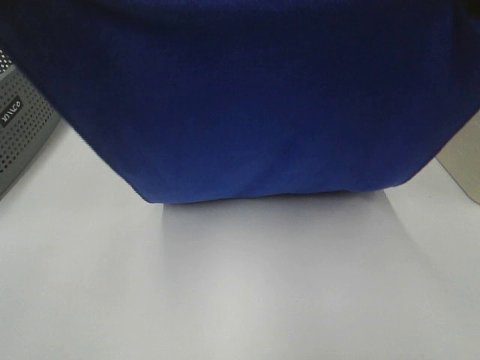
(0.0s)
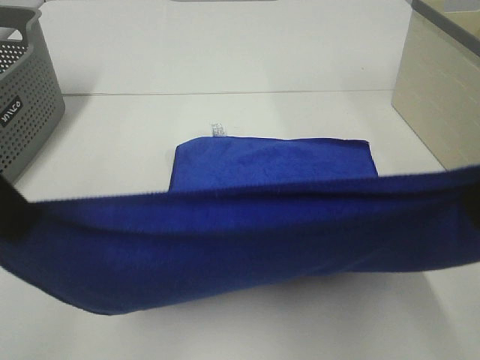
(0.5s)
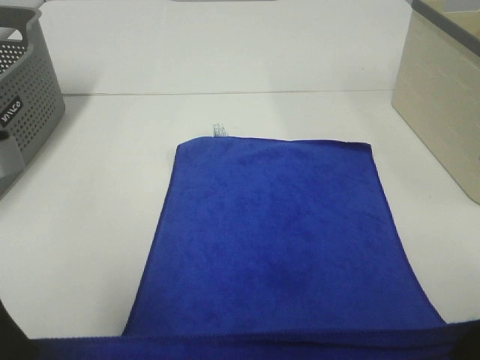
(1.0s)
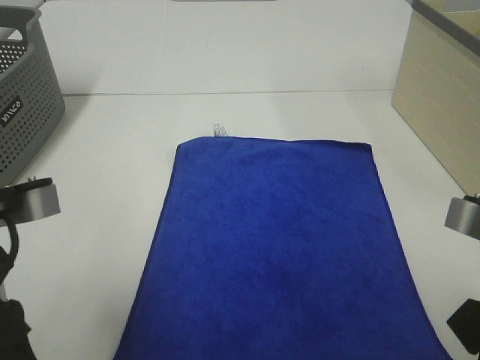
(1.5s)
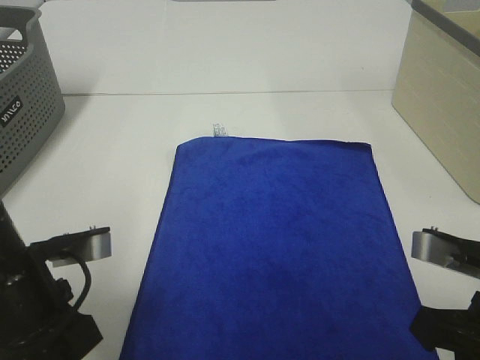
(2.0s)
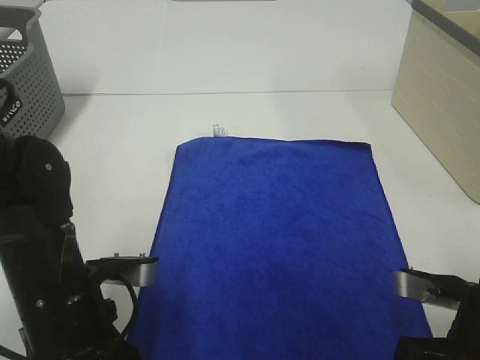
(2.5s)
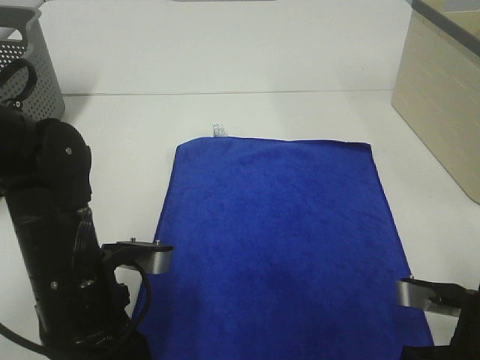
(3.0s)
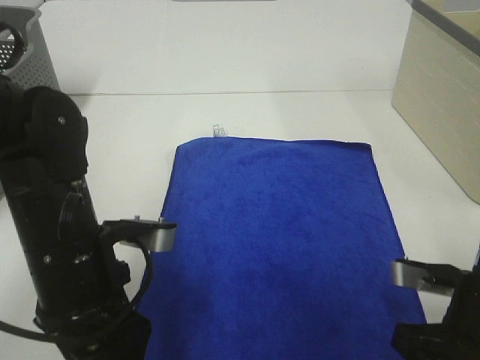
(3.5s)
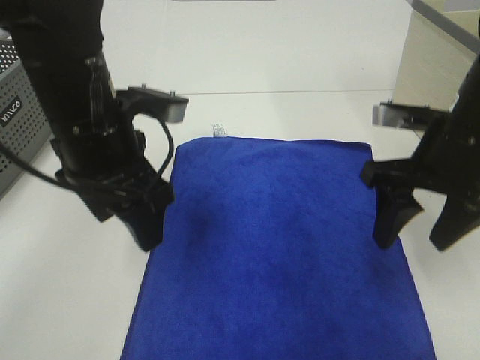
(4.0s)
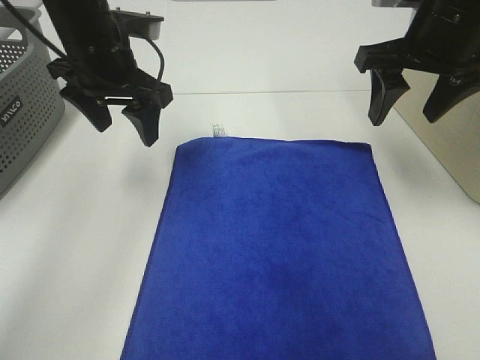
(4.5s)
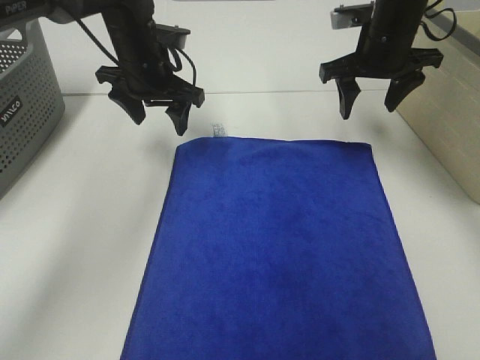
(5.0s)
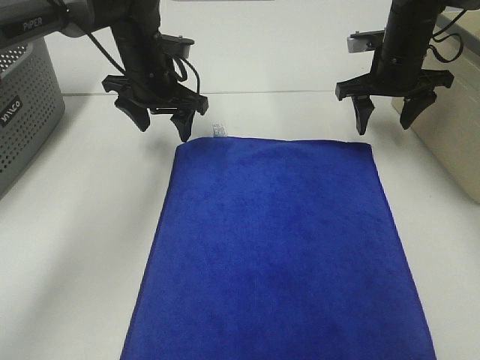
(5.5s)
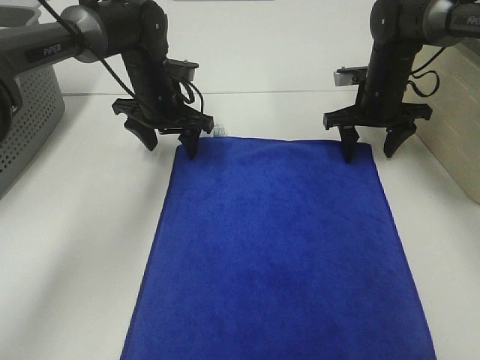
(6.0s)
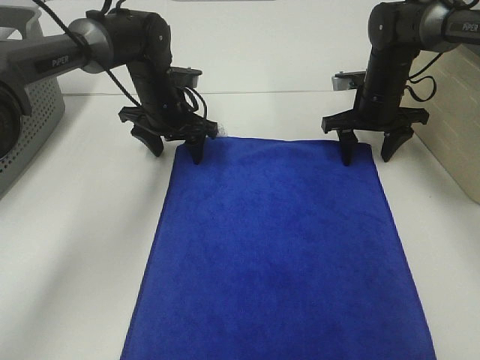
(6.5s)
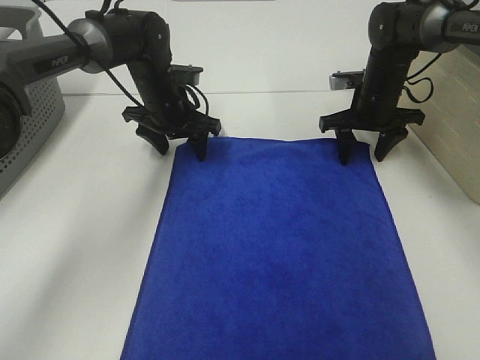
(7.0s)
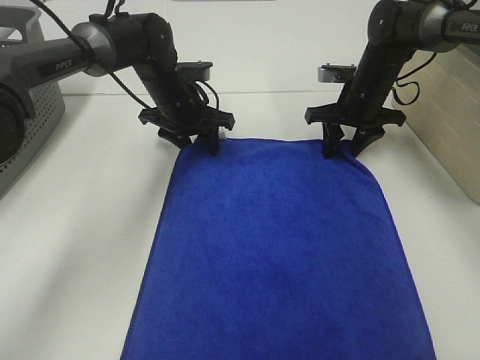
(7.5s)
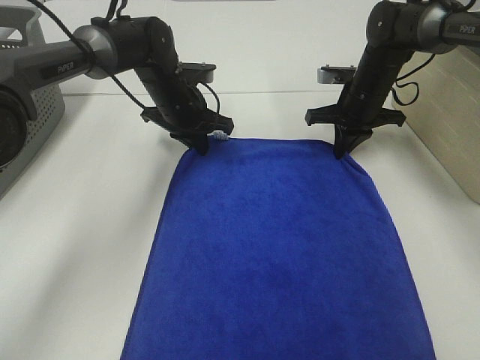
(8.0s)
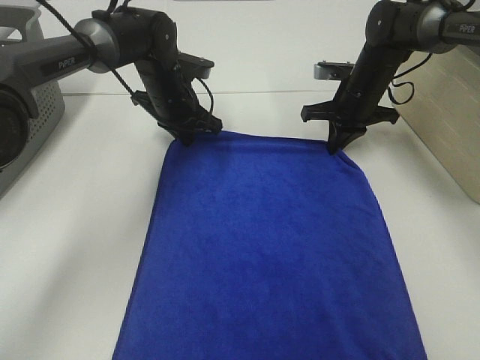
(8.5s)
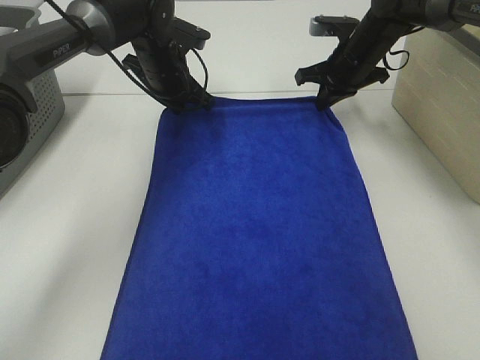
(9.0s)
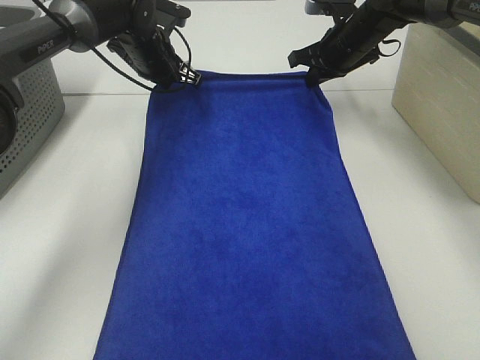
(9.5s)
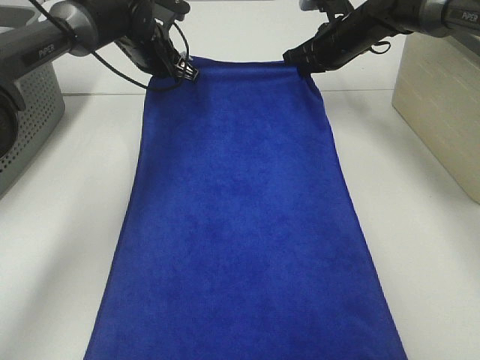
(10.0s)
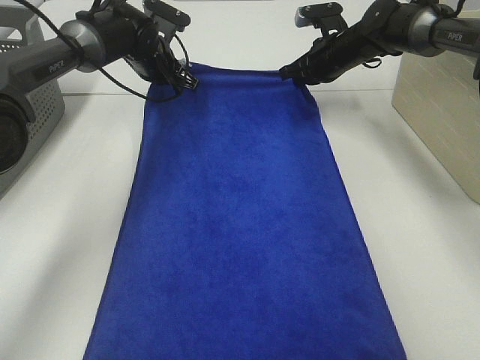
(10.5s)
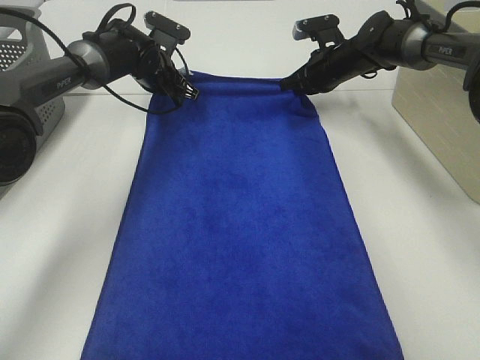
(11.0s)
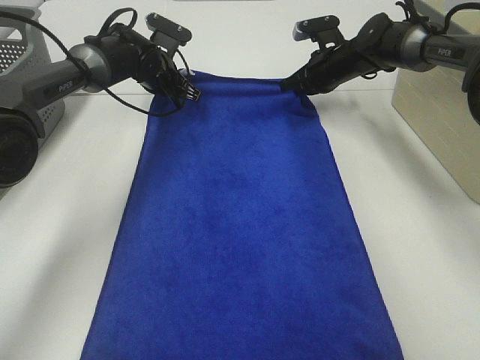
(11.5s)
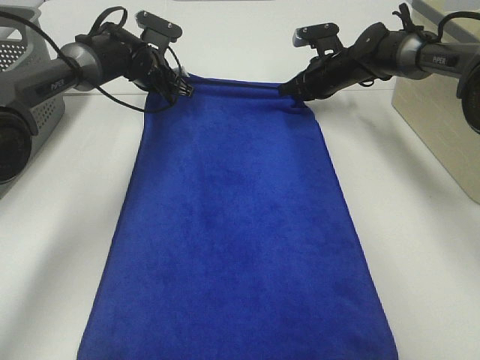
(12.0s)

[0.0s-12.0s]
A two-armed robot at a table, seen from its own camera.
Task of the whole recording: Remove the towel and place it.
Step, 0.0s to 6.0s: Left hand:adjust the blue towel.
Step, 0.0s to 6.0s: Right hand:adjust the blue towel.
0.0s to 2.0s: Both grippers move downward, roughly 25 cm.
2.0s to 4.0s: The right gripper shifts approximately 15 cm forward, and opens; the left gripper travels forward, upward and to the right by roughly 15 cm, and opens its fingers.
4.0s to 6.0s: The two grippers go about 25 cm forward and downward.
6.0s to 8.0s: The left gripper closes. Meanwhile the right gripper closes its fingers.
8.0s to 10.0s: The right gripper heads upward and forward, covering some 10 cm. Meanwhile the left gripper shifts roughly 10 cm forward and upward.
10.0s to 12.0s: The right gripper shifts approximately 5 cm downward. The left gripper moves approximately 5 cm.

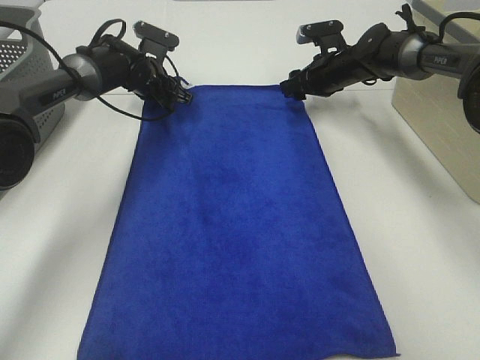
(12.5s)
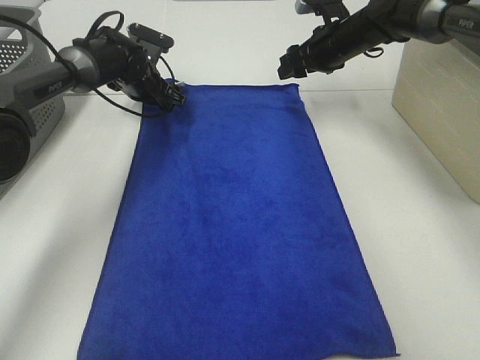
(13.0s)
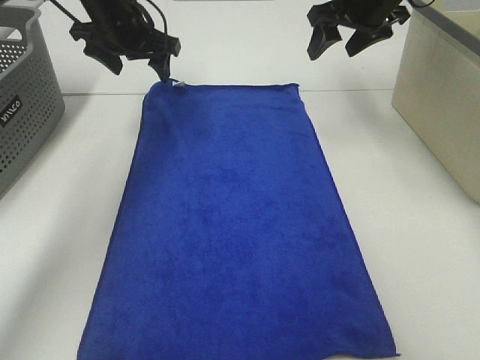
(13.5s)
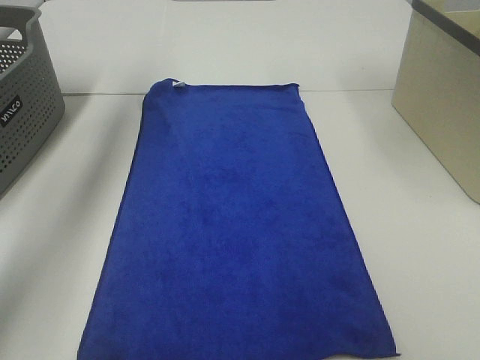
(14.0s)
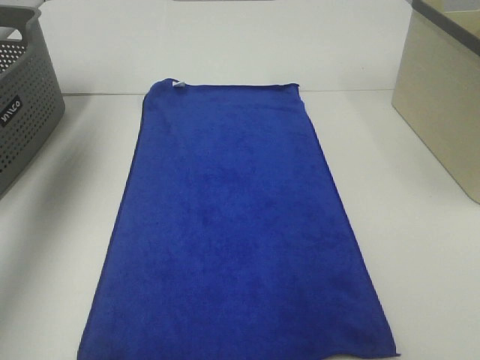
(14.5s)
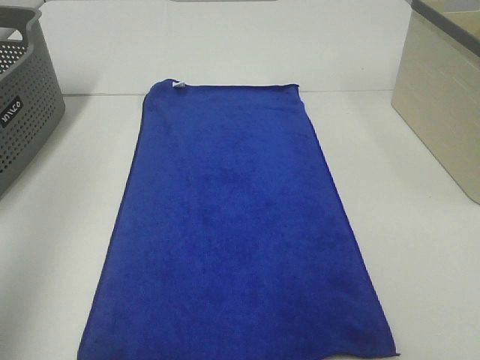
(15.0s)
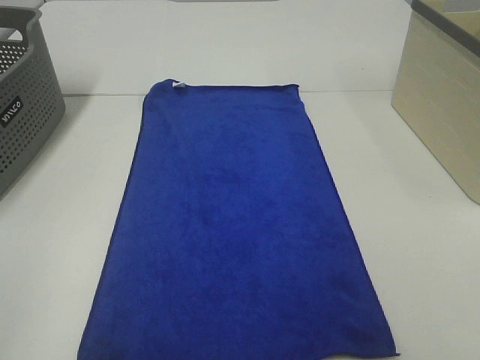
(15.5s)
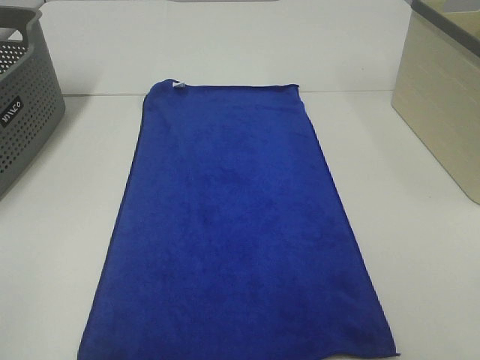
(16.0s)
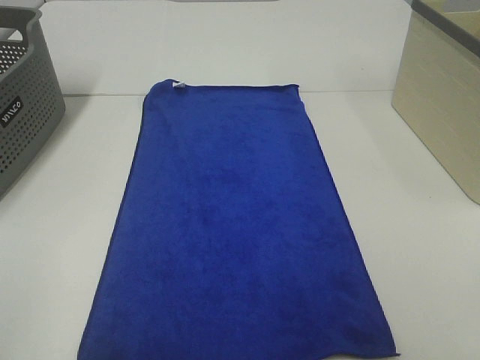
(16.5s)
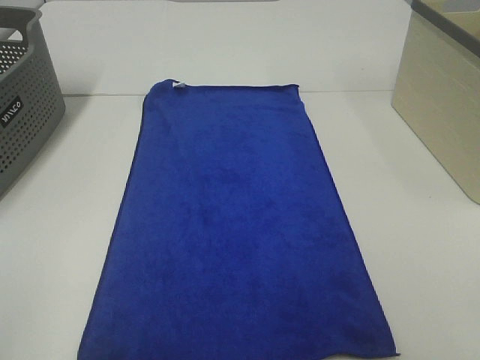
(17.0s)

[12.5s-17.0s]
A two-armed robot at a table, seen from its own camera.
Task of the whole recording: Remove the towel and place it.
12.5s to 14.5s: The left gripper shifts roughly 40 cm upward, backward and to the left; the right gripper is displaced upward and backward by about 40 cm.
14.5s to 17.0s: The left gripper shifts some 40 cm backward.

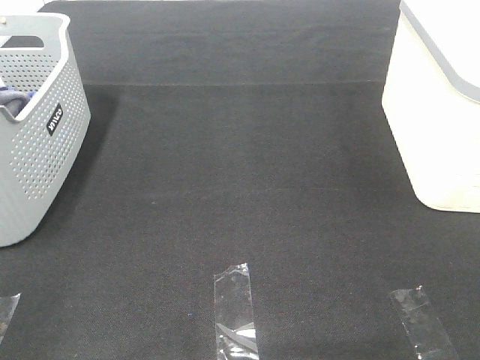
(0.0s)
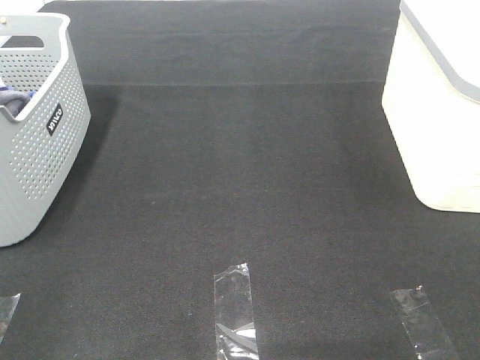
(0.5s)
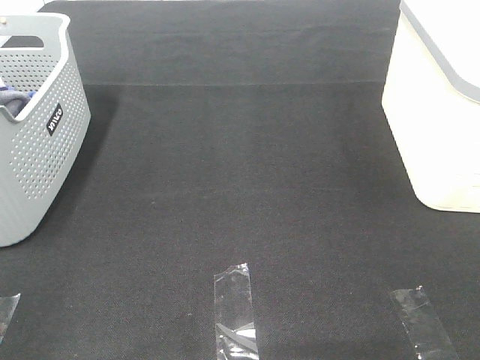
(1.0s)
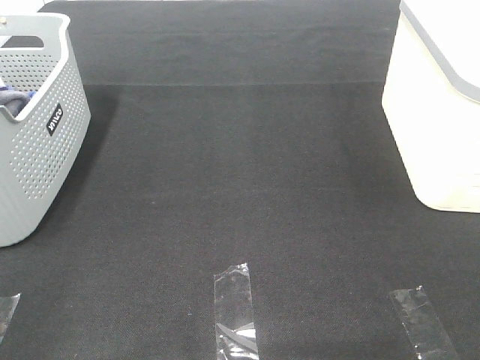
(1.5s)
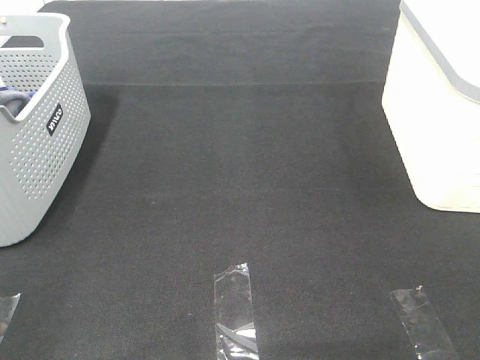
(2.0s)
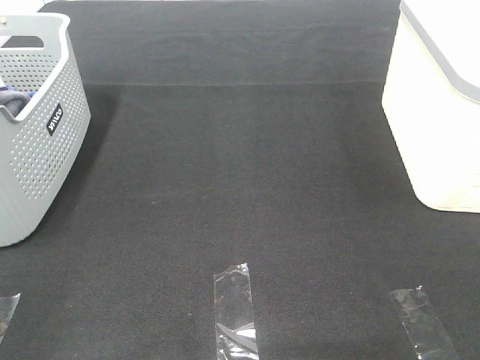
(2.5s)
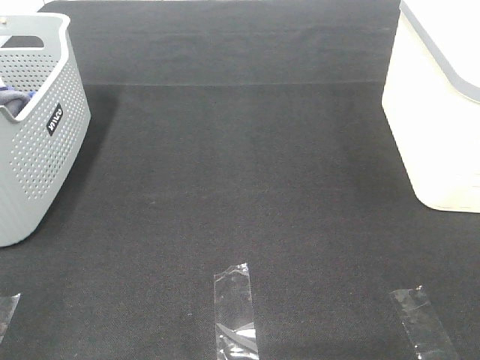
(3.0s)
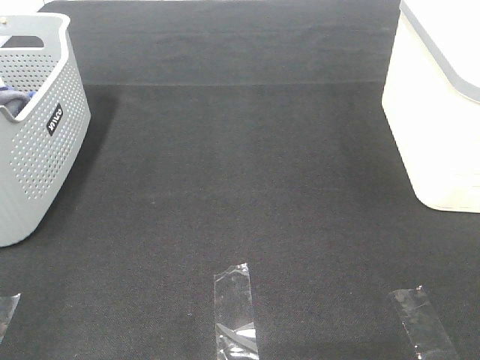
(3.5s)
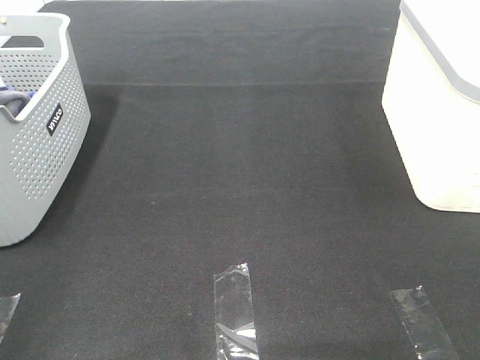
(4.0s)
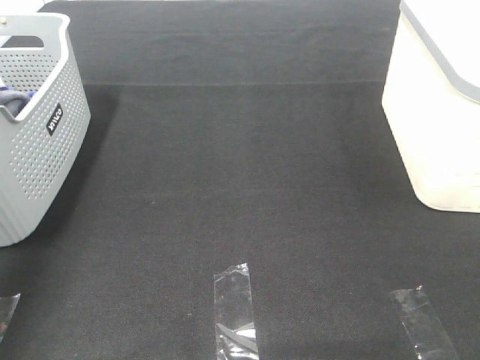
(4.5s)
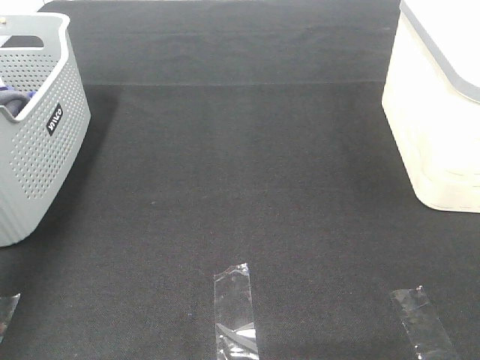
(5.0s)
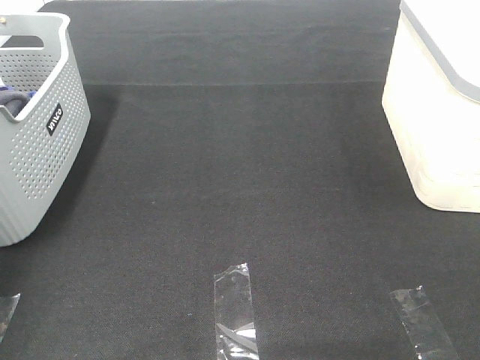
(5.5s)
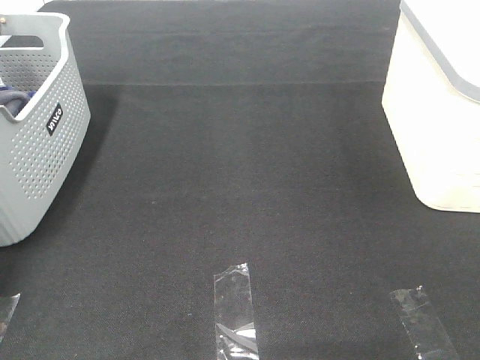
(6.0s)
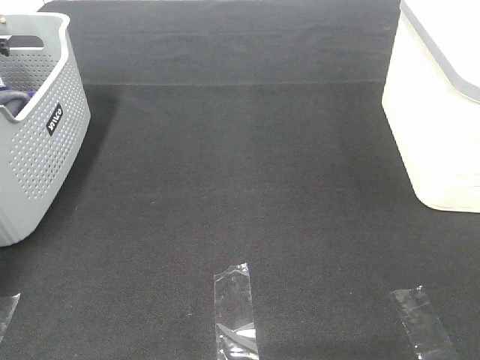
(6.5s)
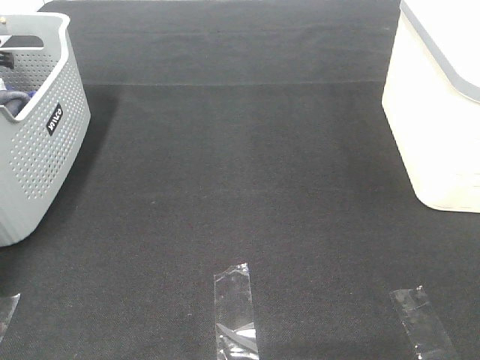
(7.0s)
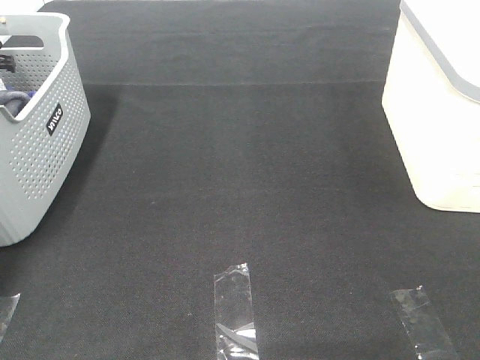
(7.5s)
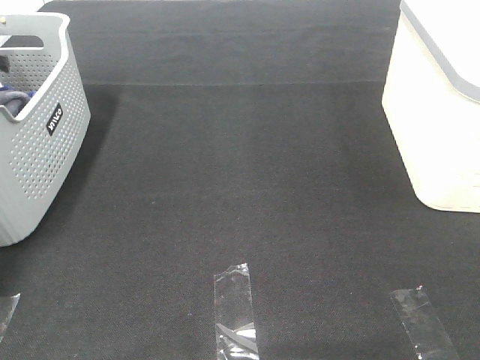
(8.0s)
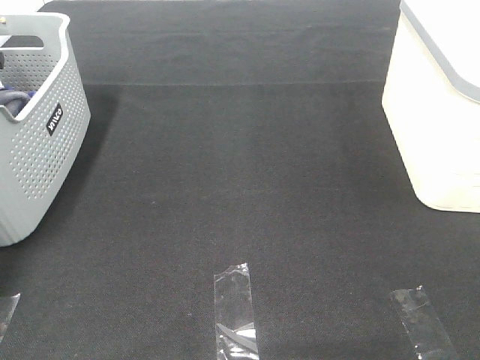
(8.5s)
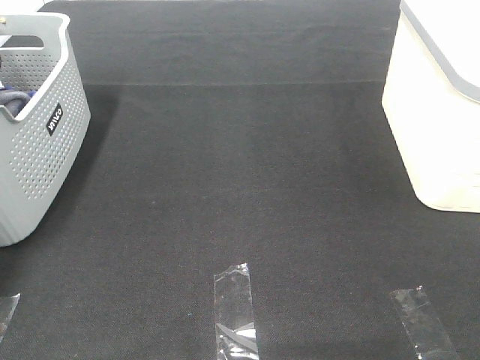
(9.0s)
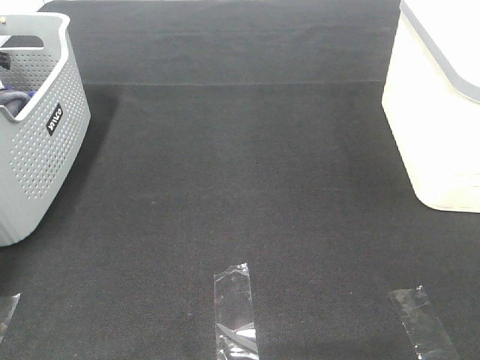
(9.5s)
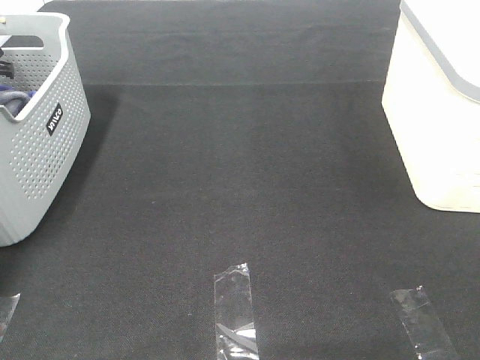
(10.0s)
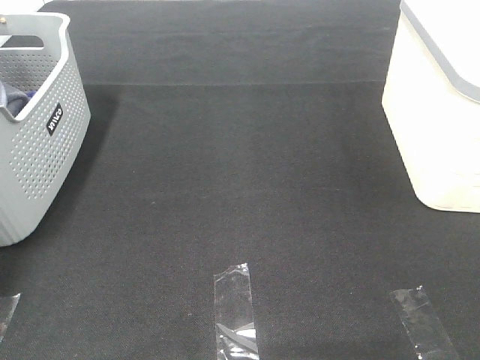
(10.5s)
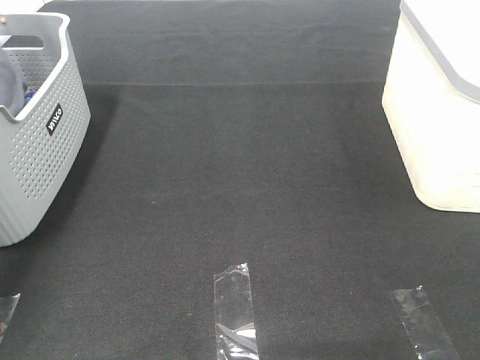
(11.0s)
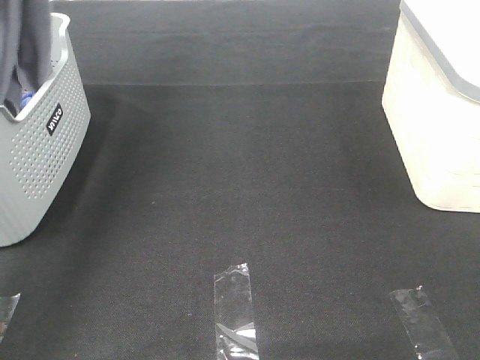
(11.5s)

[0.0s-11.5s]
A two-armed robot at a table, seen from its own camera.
Task of the whole recording: Remove the towel and place it.
0.0s to 2.0s: Both grippers stay about where they are.
4.0s to 6.0s: The left gripper moves forward, approximately 50 cm.
9.5s to 11.5s: The left gripper heads upward, to the right and backward, covering some 40 cm, and closes its fingers.
